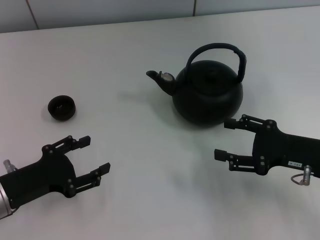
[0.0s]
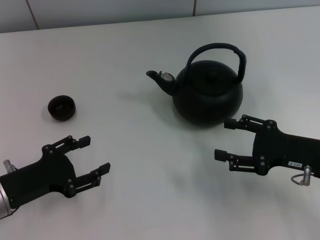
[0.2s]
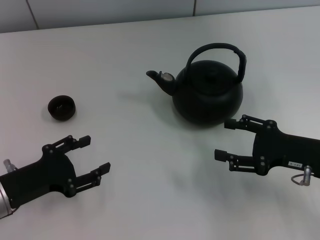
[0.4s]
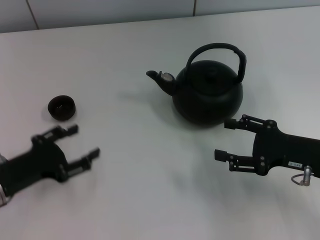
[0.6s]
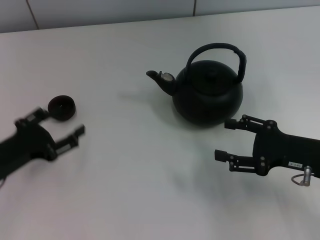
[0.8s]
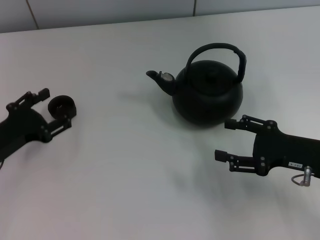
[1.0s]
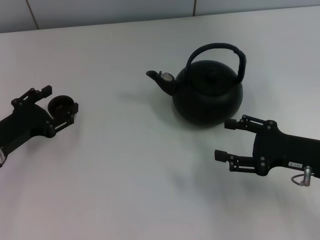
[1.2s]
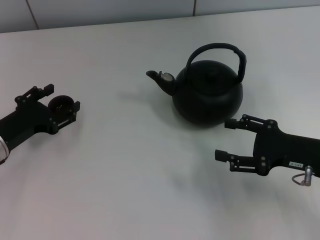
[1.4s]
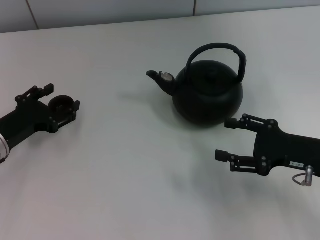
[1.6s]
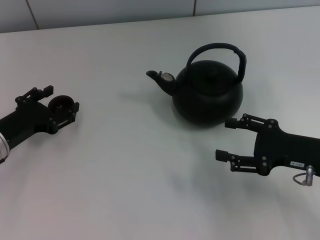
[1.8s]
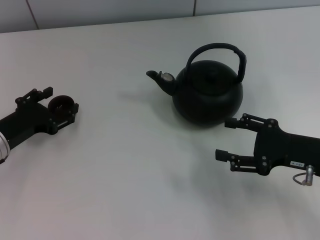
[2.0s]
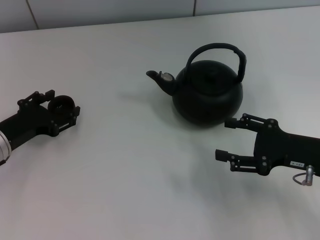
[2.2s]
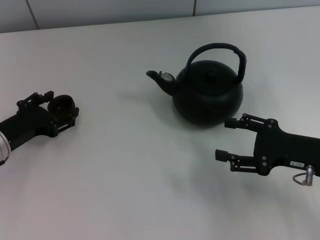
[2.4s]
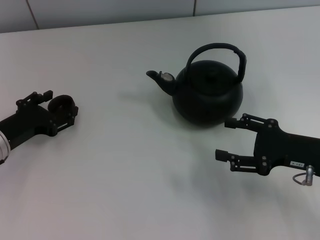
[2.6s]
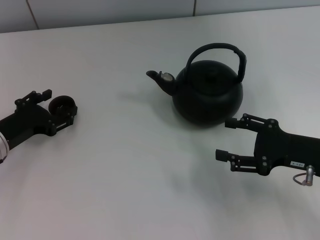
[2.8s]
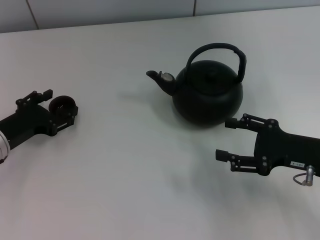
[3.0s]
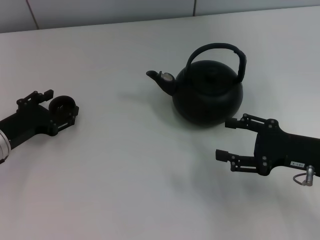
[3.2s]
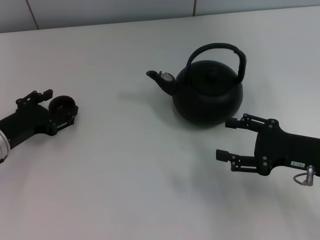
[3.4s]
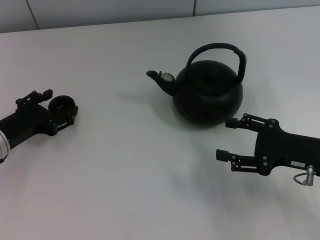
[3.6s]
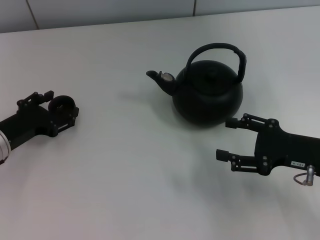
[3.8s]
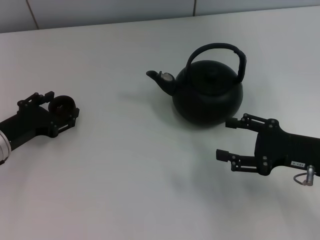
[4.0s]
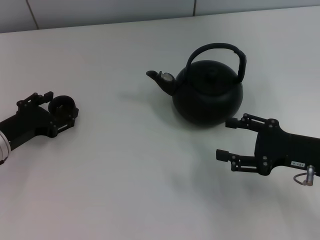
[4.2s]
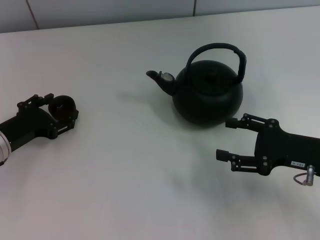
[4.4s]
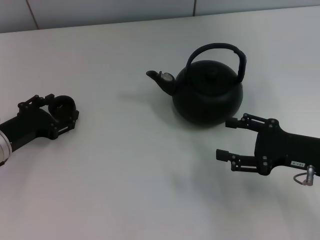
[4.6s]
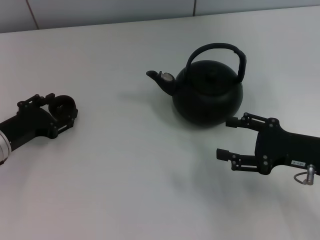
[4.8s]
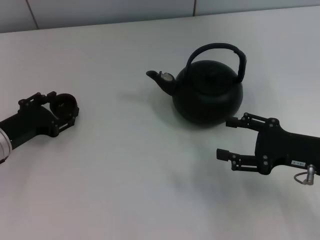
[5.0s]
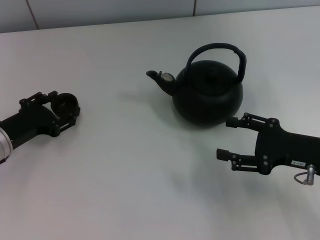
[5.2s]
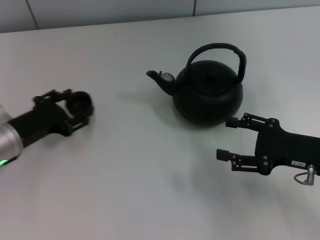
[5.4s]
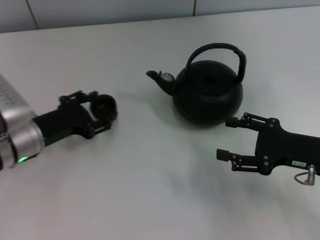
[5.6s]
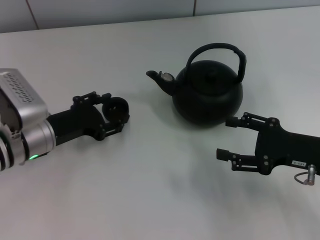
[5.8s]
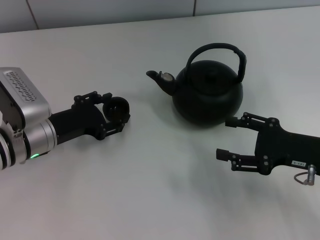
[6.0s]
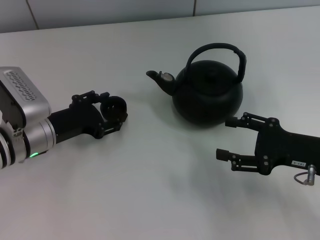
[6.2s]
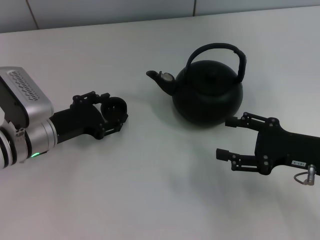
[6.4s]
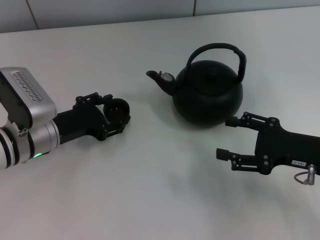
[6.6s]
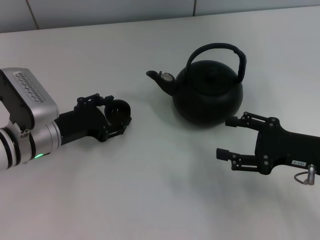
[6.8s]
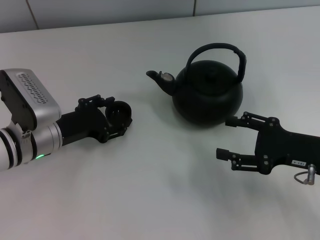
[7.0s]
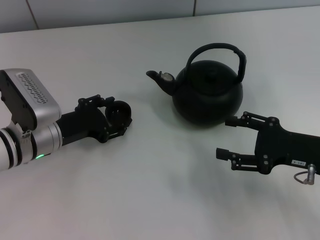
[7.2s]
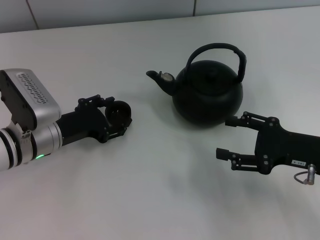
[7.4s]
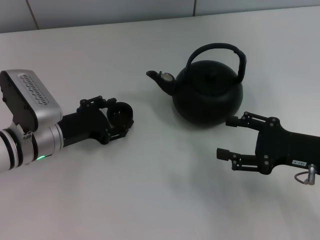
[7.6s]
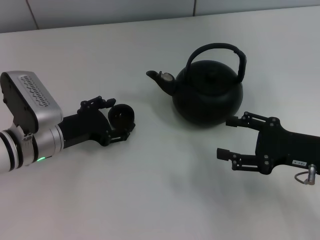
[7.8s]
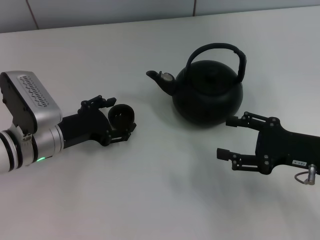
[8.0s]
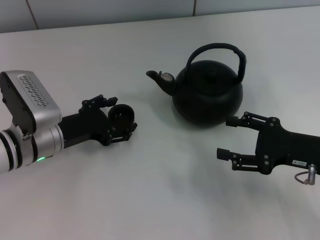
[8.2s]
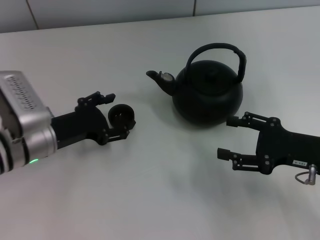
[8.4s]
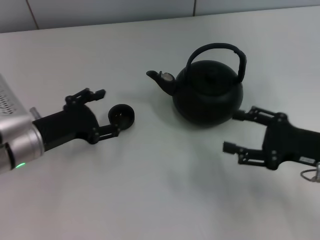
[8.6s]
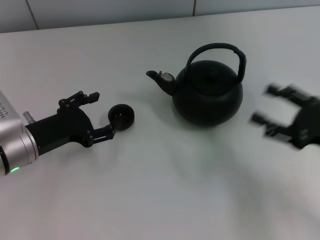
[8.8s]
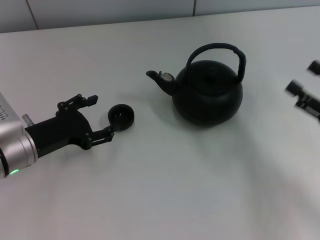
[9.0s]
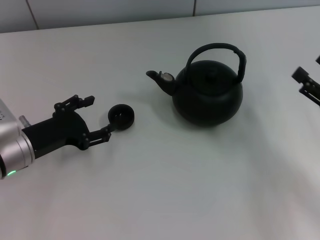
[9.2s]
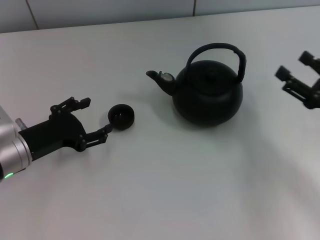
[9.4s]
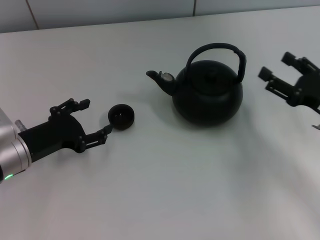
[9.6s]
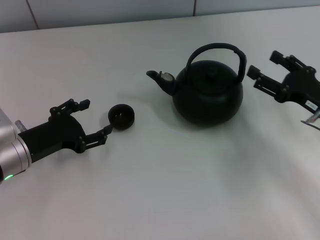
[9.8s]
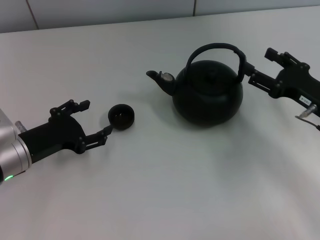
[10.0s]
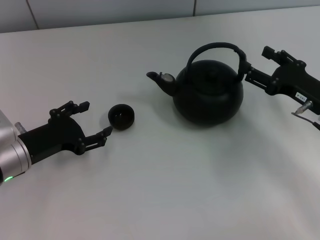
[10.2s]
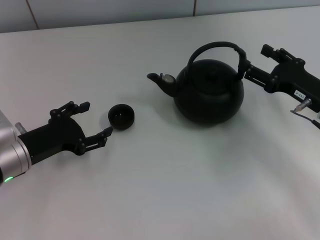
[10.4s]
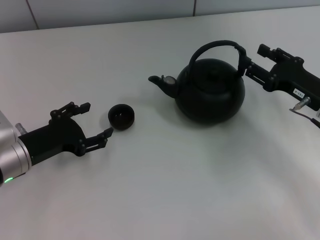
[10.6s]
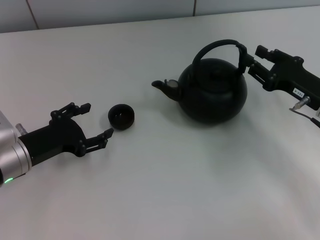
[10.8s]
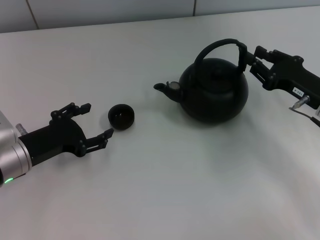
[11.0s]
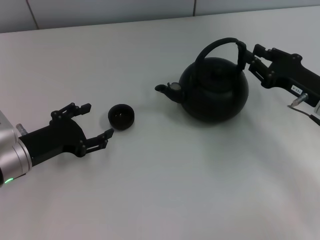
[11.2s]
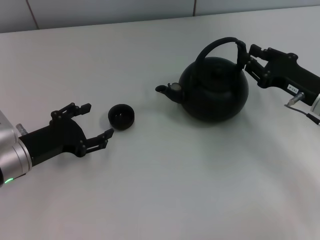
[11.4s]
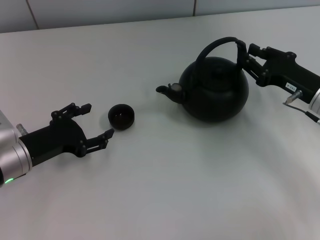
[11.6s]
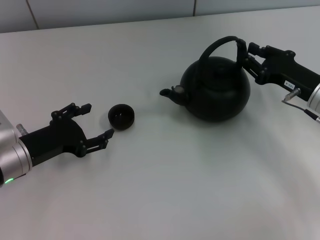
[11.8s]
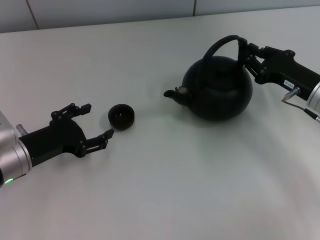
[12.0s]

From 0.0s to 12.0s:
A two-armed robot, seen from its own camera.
Task of the whole recording: Grasp the handle of the teapot with one hand and pour tea into the teacup.
Step, from 0.0s to 6.0s: Pick up the teacup with the left gripper.
Step, from 6.2s to 8.8s: Place the teacup in the center of view with the left gripper.
From 0.0s to 1.6s: The left gripper moves forward, approximately 5 cm.
From 1.6s to 3.0s: The grippers stay close to where they were, moving slightly.
From 3.0s to 4.4s: The two grippers keep their place.
From 4.4s to 6.0s: The left gripper shifts roughly 5 cm to the right, and closes its fingers.
From 6.0s to 7.6s: Both grippers stay about where they are.
From 7.6s to 9.0s: The right gripper moves to the right, approximately 5 cm. The left gripper opens up.
From 9.0s to 10.4s: The right gripper shifts some 10 cm forward.
From 10.4s to 12.0s: The right gripper closes up.

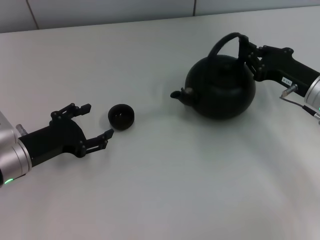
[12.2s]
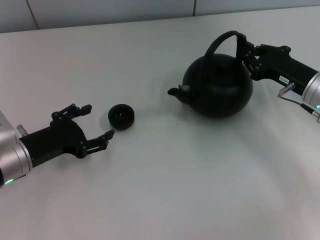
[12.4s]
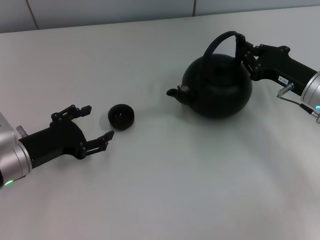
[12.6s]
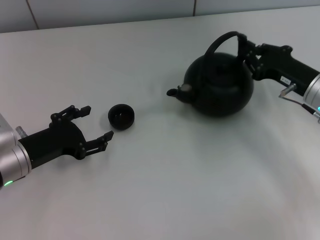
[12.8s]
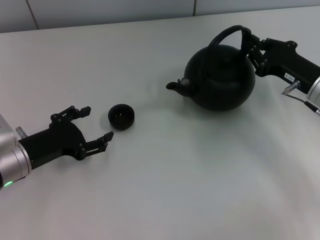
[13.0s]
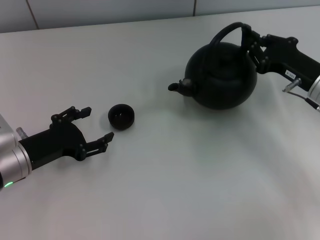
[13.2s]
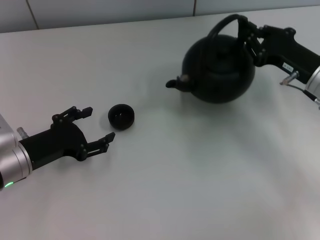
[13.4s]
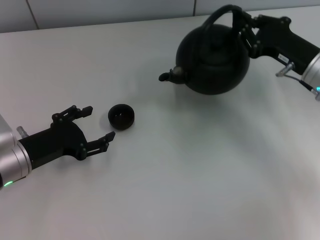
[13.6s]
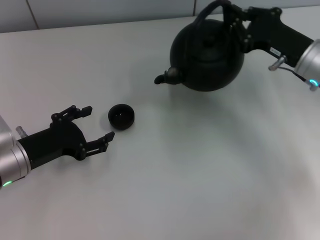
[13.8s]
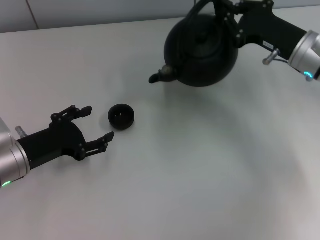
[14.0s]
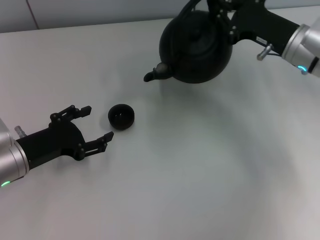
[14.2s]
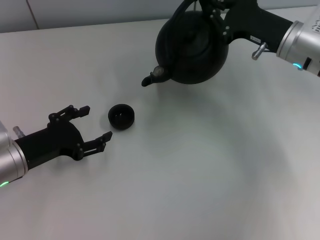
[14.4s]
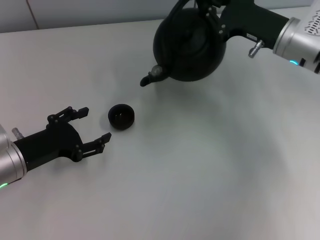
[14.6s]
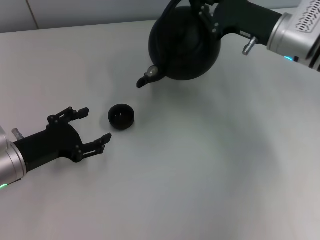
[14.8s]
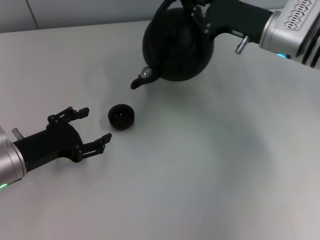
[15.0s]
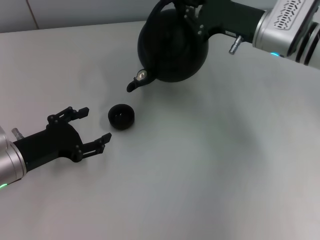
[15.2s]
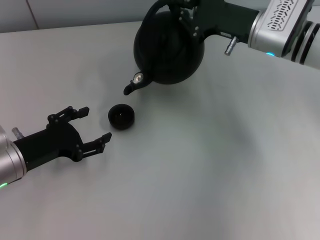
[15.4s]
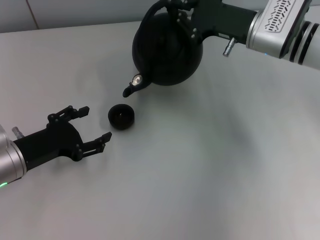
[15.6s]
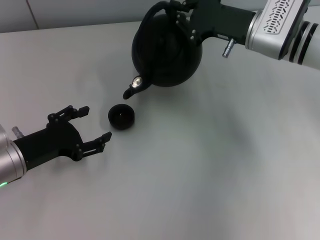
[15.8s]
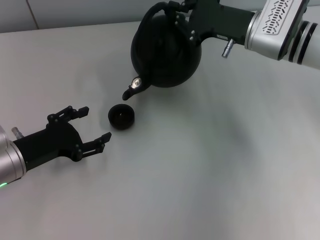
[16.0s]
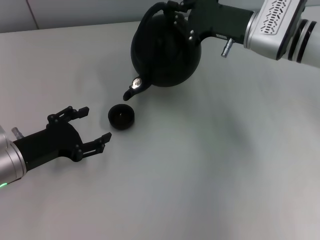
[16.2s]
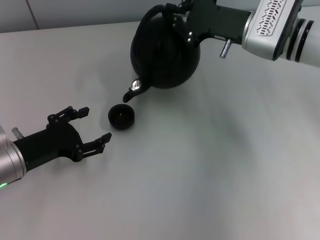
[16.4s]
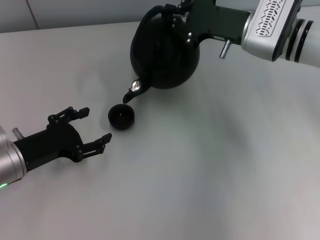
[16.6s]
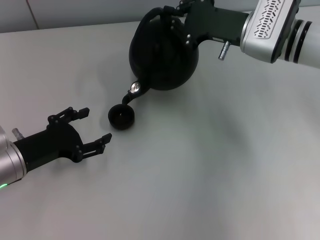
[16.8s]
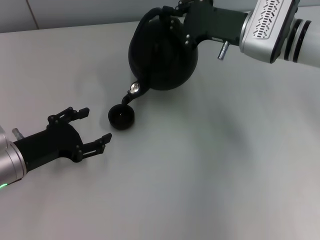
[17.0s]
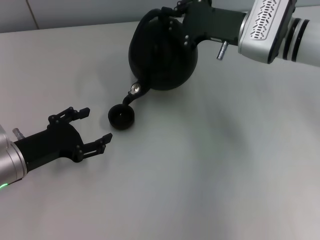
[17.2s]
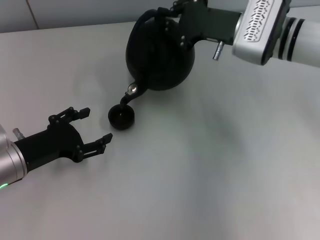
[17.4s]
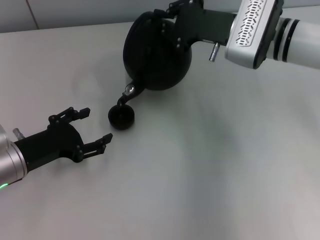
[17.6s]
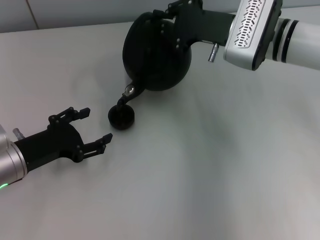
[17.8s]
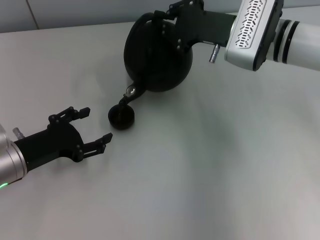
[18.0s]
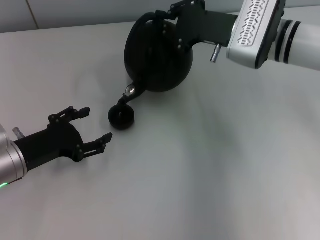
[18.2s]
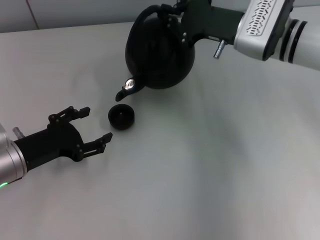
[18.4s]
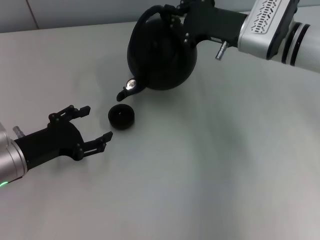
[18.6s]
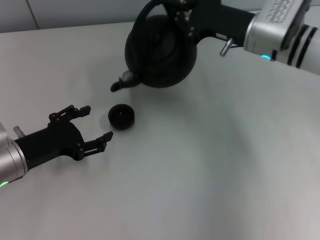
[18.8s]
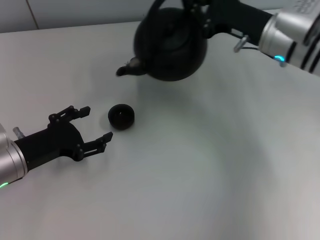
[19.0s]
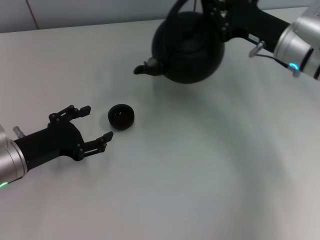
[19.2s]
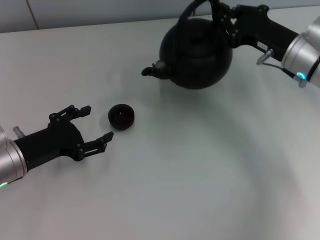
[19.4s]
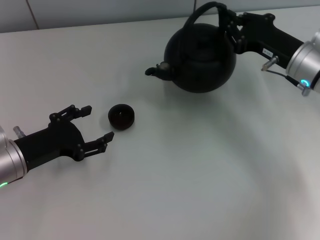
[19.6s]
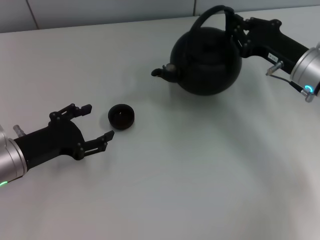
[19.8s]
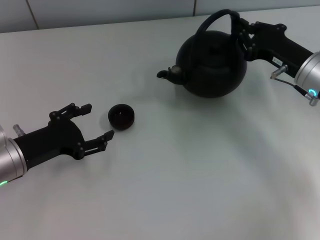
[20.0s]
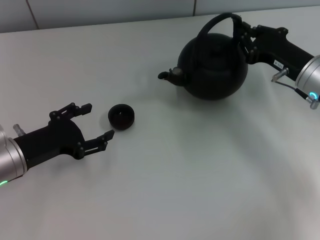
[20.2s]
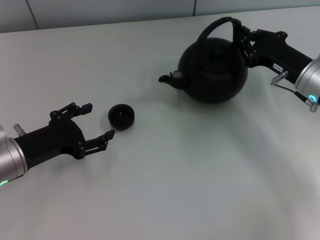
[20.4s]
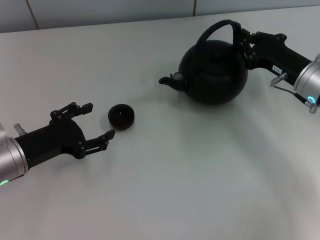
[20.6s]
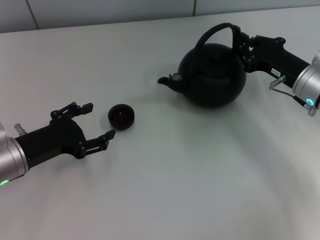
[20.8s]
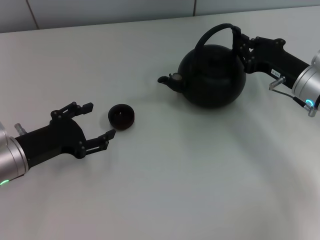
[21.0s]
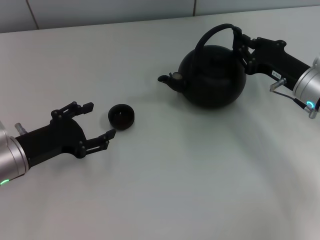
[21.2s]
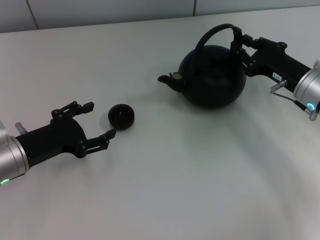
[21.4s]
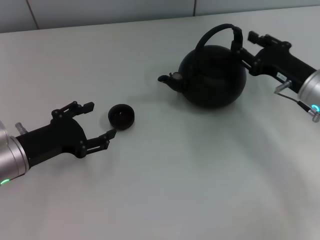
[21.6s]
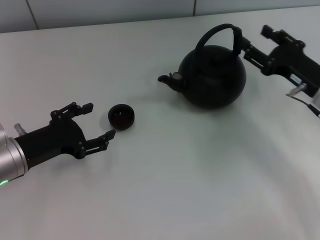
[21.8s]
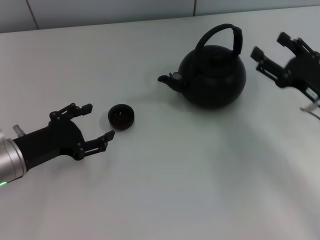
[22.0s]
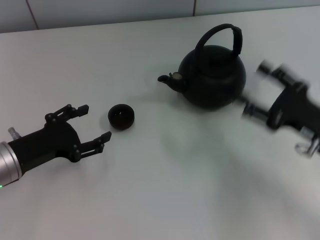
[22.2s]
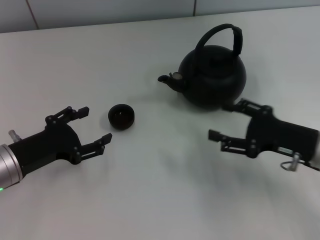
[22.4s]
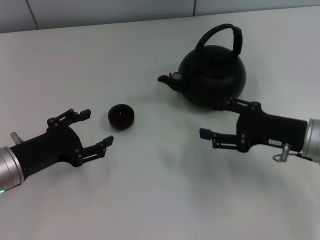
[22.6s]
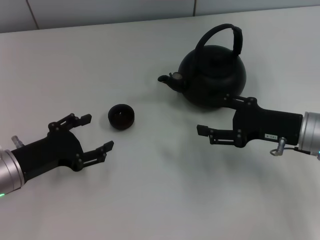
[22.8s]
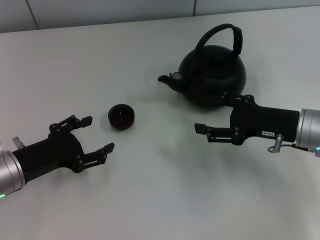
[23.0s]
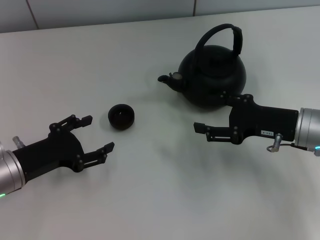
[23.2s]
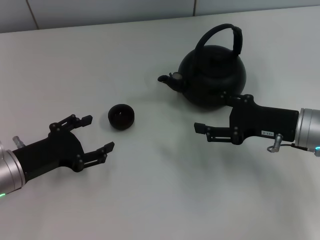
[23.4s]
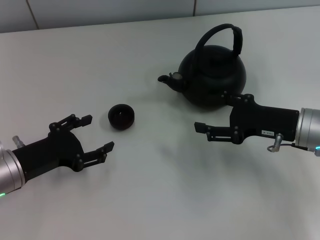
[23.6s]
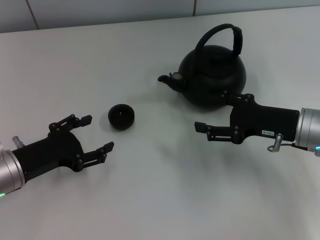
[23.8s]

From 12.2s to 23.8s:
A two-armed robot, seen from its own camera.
Task of the whole recording: Grasp the handle of the teapot with one hand and pour tea into the teacup.
Step, from 19.0s to 22.4s: Put down the teapot with the right gripper.
From 12.2s to 13.6s: The grippers make only small movements.
From 13.6s to 15.0s: The right gripper goes roughly 10 cm to the left and forward.
From 15.0s to 18.0s: There are only small adjustments of the grippers.
From 18.0s to 19.4s: The right gripper heads to the right, covering approximately 10 cm.
From 19.4s to 21.0s: The right gripper ends up some 5 cm from where it was.
From 21.0s to 22.4s: The right gripper moves backward, about 10 cm, and opens.
From 22.4s to 23.8s: The grippers stay close to where they were, moving slightly.
